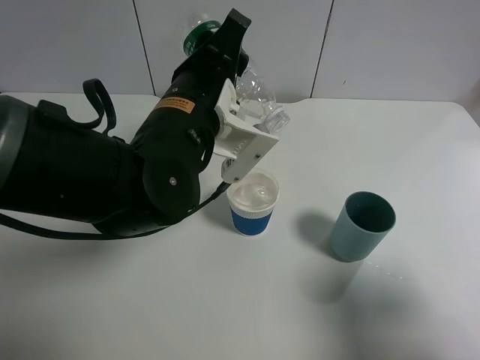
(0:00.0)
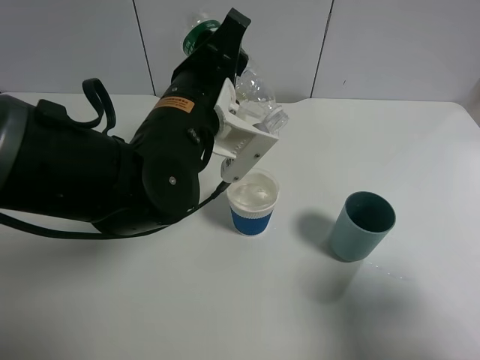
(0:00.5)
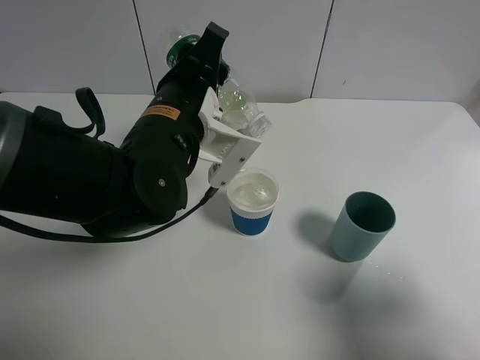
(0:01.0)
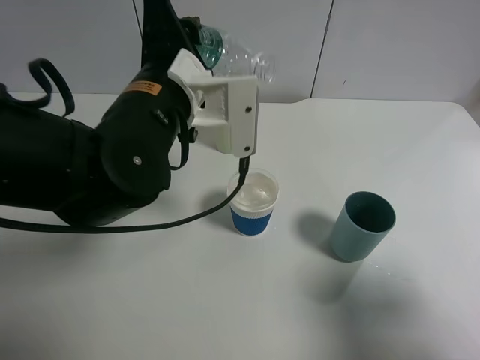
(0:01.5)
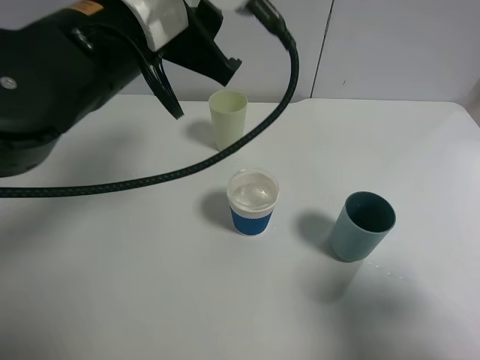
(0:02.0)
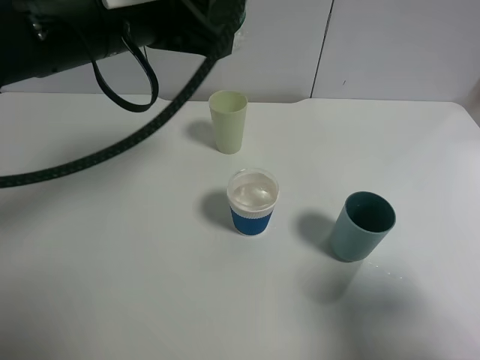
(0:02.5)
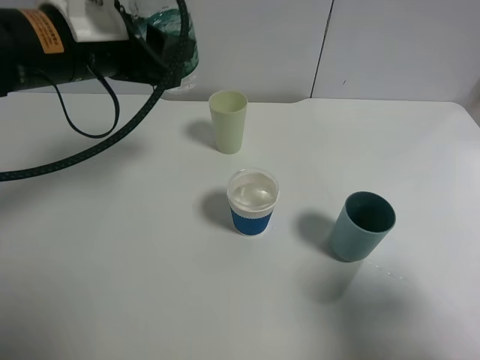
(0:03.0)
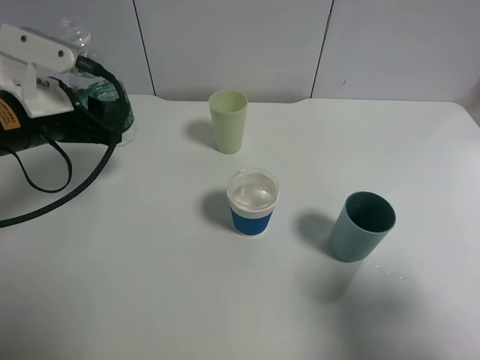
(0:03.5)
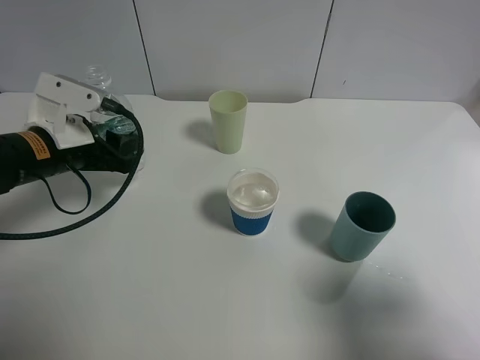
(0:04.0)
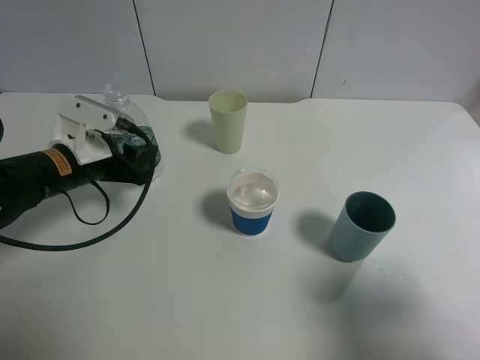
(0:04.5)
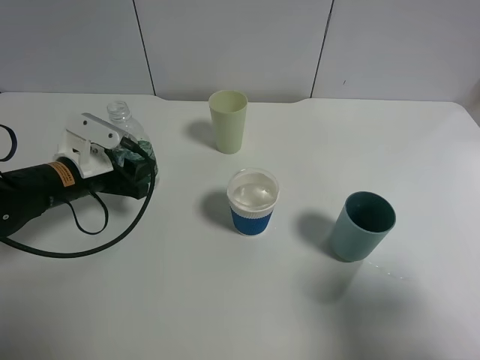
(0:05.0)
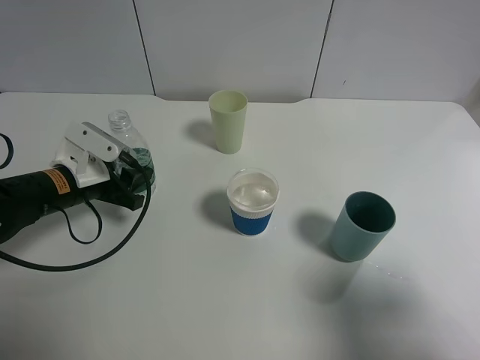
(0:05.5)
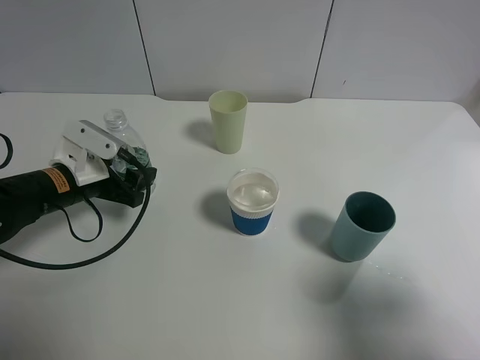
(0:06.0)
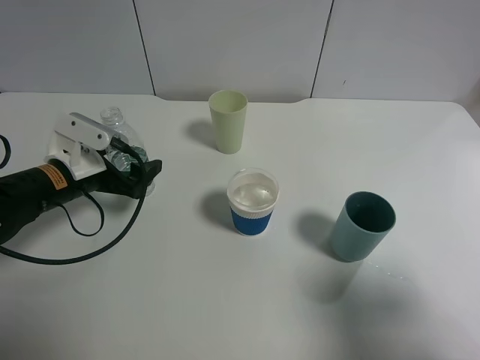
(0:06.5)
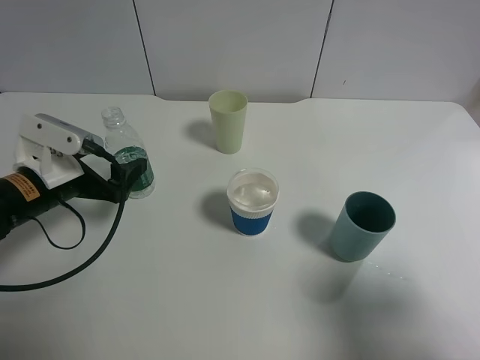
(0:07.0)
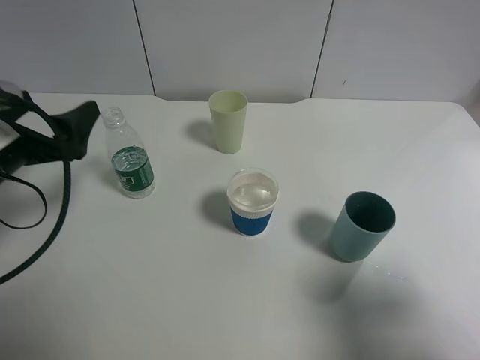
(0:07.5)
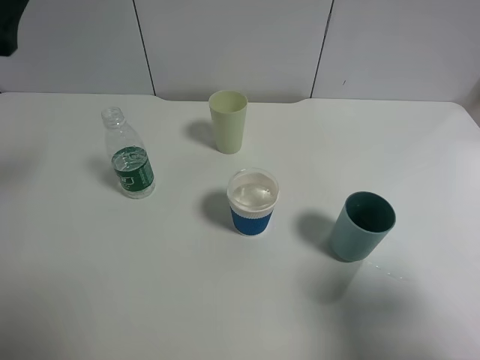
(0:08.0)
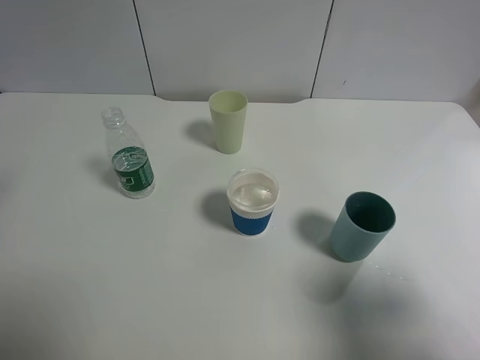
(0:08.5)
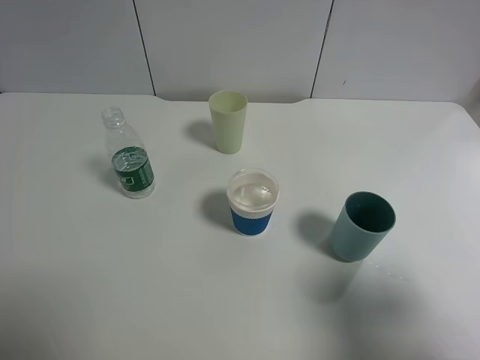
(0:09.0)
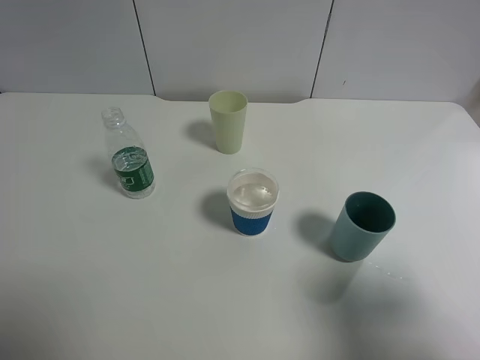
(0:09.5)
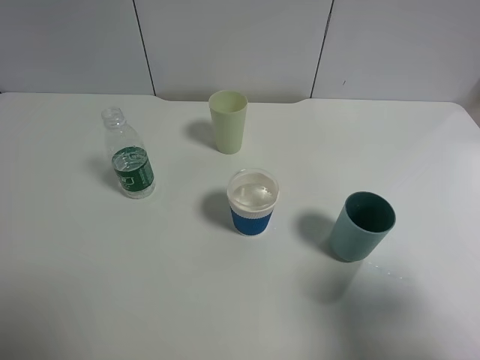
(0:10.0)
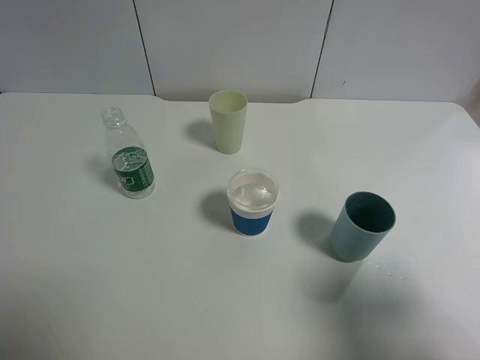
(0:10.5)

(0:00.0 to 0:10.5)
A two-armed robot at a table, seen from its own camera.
Task of the whole recording: use a gripper to hold the bottle of the drink and pour it into a random cup.
Step, 0:02.0 - 0:07.0: Place the mineral water bottle on the table with the left gripper.
0:00.0 - 0:02.0: The left gripper shifts about 10 cm upward.
0:02.0 - 0:04.0: The left gripper heads downward and to the left, covering some 20 cm.
0:04.0 - 0:06.5: The left gripper goes approximately 5 cm downward, and opens.
0:06.5 - 0:08.5: The left gripper shifts about 25 cm upward and backward.

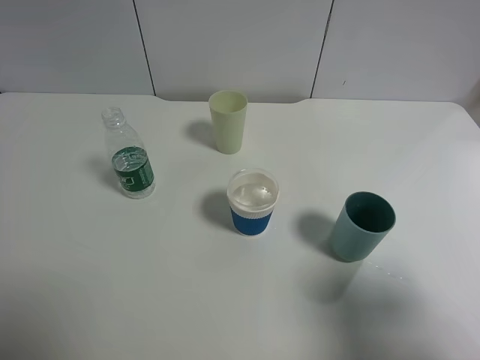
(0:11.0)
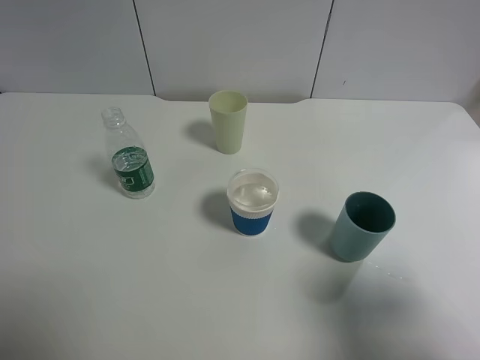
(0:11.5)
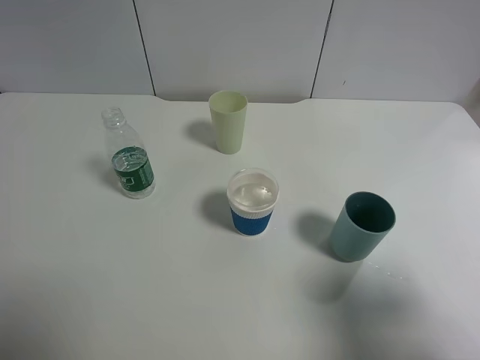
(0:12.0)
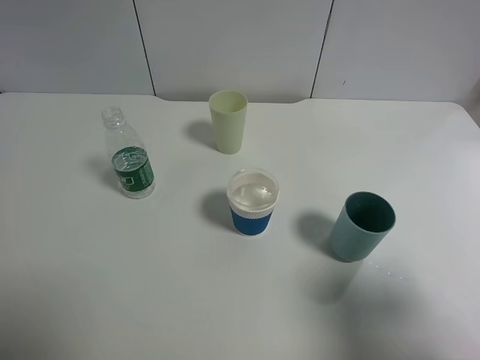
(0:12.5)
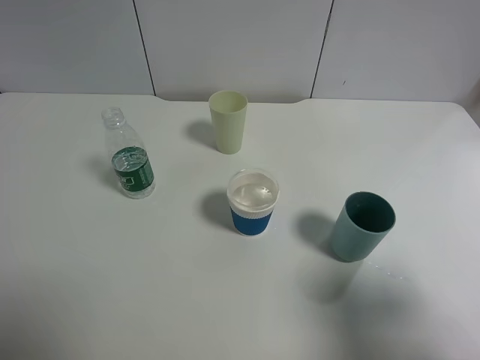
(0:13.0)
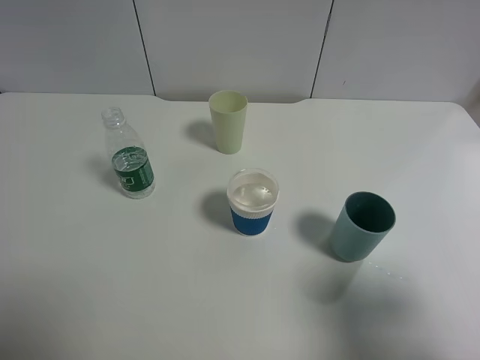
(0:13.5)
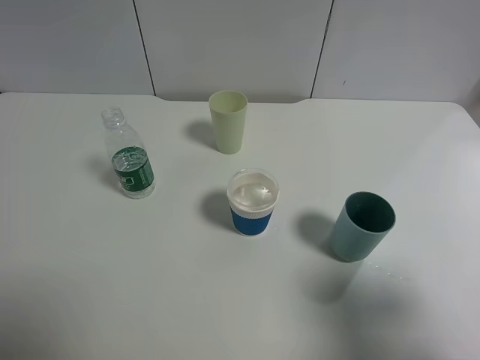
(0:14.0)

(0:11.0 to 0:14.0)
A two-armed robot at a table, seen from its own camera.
Task of the whole recording: use a gripper to hold the bottle of the drink and pour it into a random cup.
0:11.0 - 0:14.0: Both grippers stay put.
